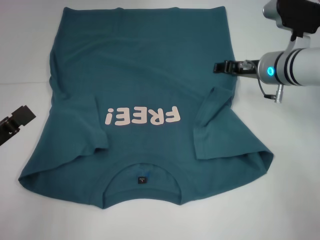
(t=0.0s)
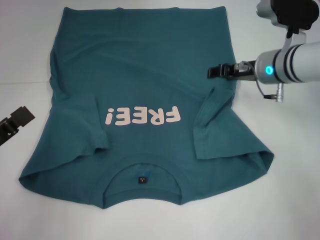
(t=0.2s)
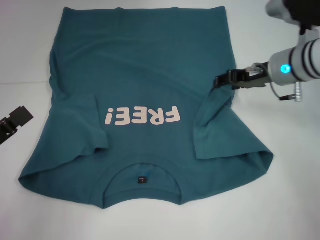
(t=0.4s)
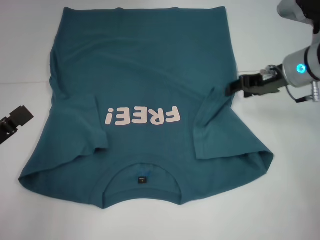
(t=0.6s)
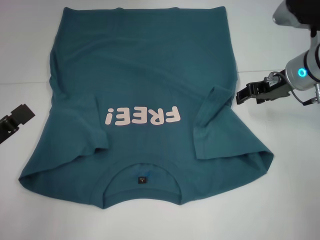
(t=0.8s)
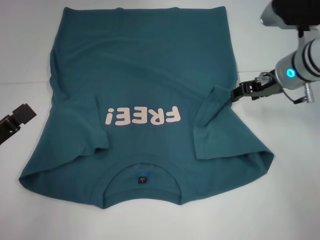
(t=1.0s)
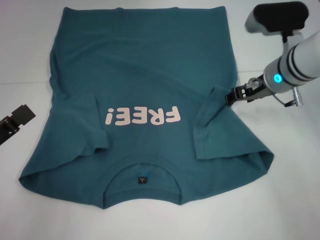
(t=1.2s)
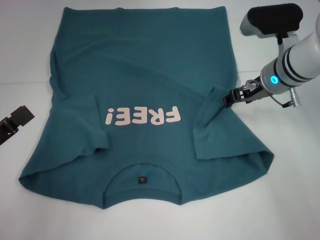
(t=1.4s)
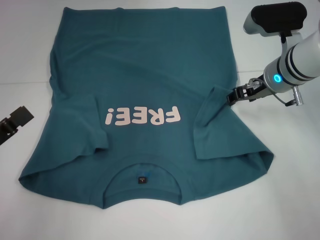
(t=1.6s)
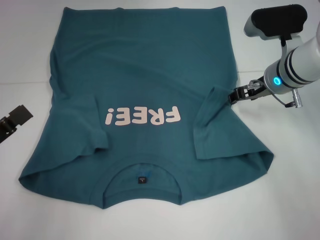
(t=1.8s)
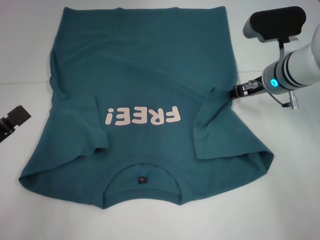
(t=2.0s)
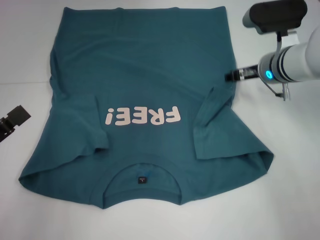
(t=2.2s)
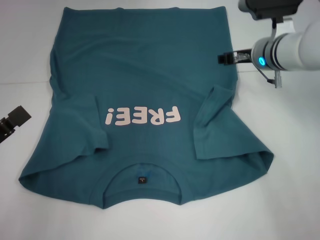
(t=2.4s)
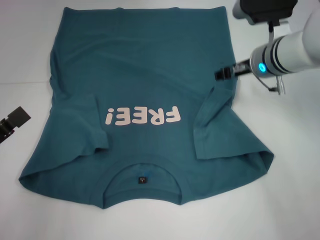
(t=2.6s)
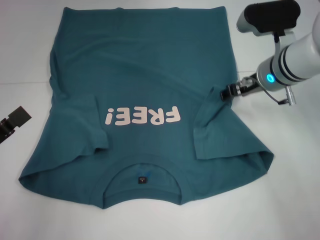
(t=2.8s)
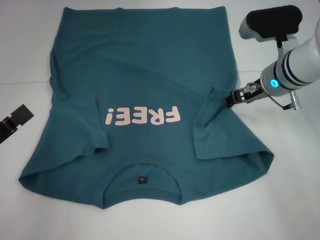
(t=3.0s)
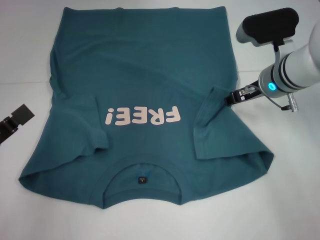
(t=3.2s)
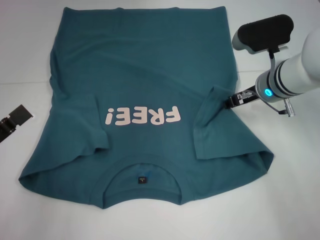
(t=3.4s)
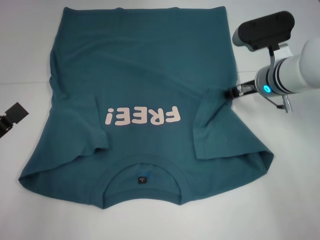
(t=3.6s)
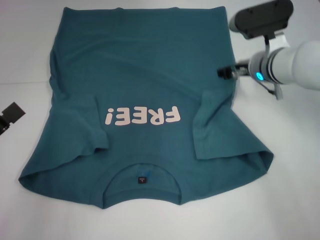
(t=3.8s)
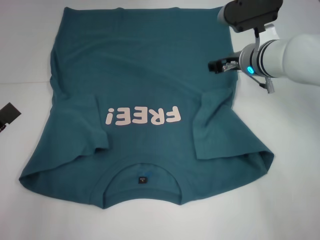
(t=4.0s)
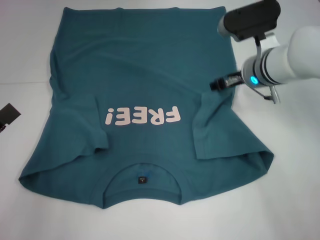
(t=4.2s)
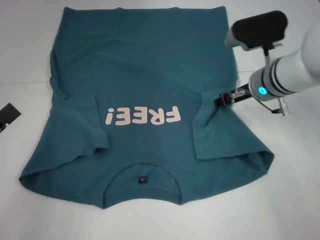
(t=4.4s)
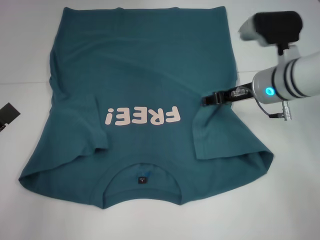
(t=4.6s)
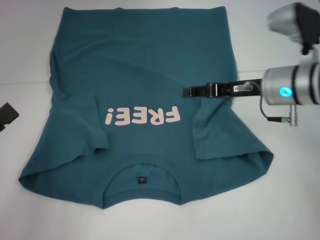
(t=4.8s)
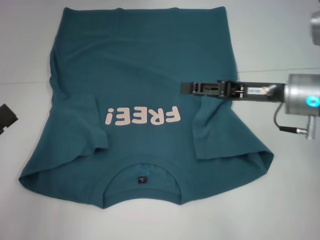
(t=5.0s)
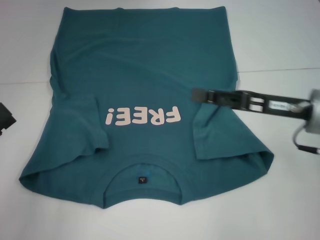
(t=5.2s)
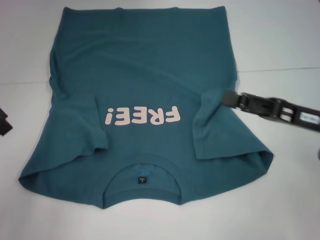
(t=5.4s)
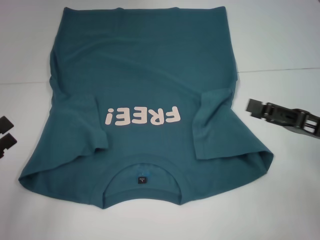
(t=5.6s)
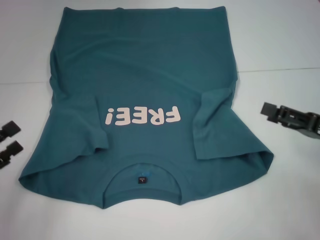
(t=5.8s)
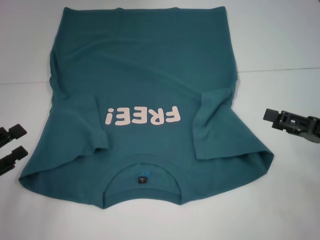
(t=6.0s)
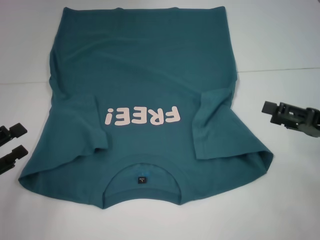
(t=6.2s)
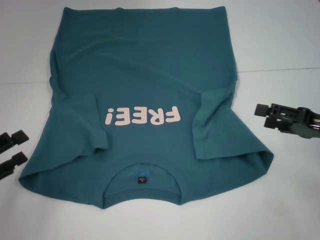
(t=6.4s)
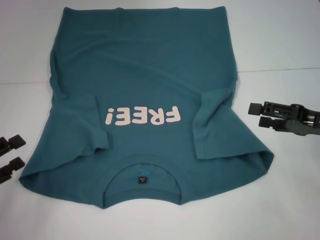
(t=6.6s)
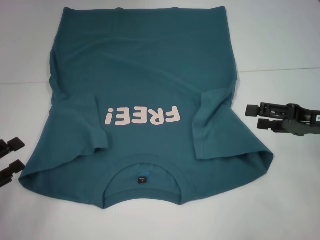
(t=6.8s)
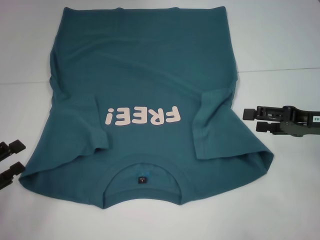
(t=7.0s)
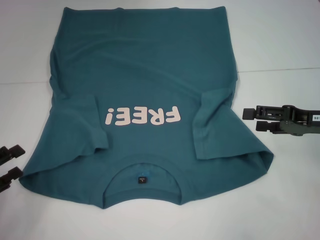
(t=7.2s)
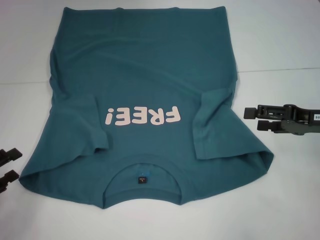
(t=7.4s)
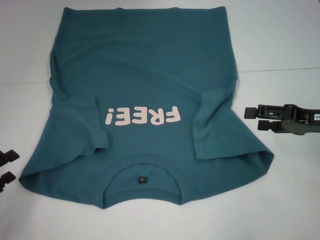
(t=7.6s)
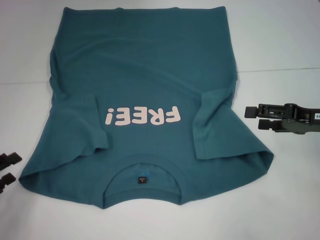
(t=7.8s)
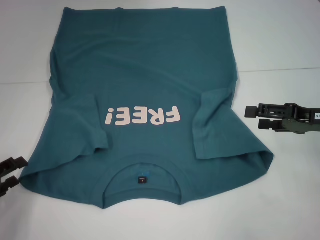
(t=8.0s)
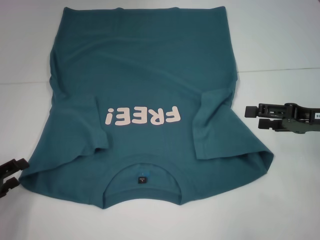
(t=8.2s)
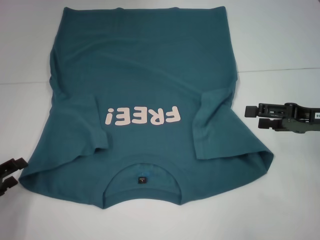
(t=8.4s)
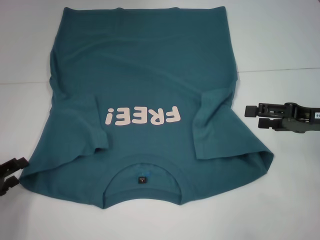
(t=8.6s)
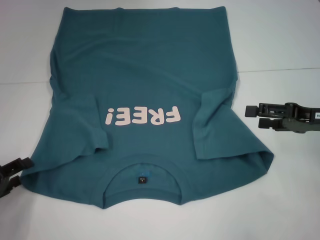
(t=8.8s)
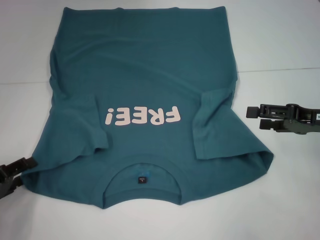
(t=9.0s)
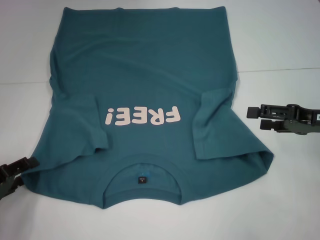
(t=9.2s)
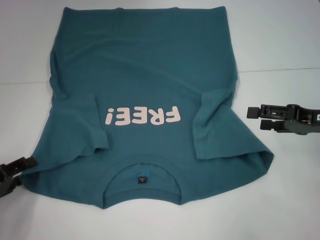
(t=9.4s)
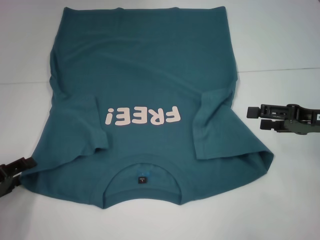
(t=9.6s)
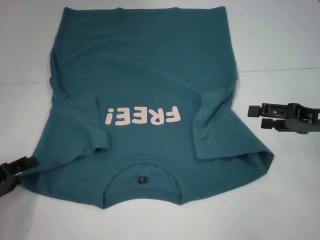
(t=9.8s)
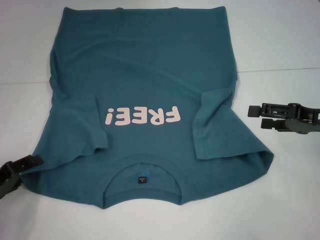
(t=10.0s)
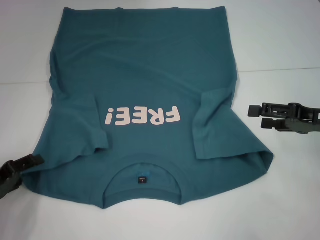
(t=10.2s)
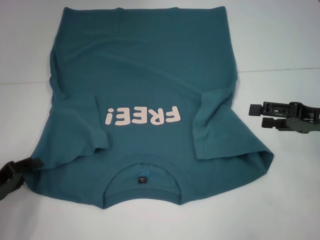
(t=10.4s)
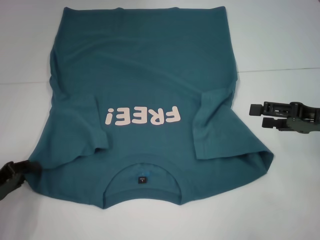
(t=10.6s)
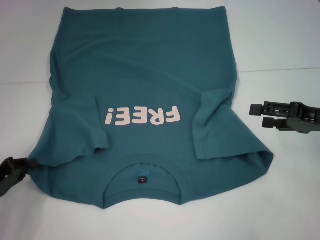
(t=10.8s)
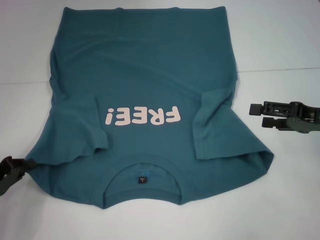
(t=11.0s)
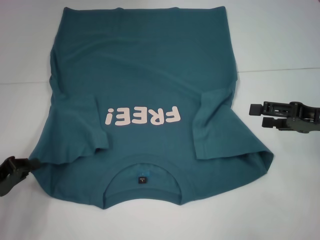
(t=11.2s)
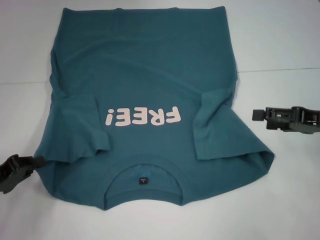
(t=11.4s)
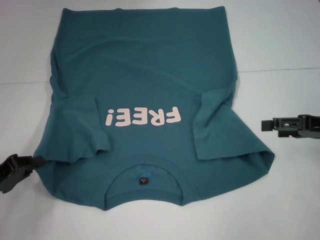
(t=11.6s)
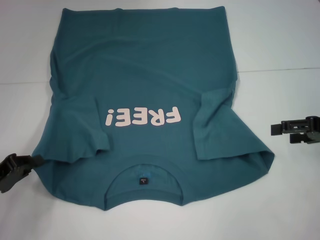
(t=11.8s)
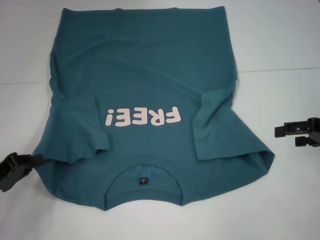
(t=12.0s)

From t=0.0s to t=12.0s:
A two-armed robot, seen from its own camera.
Step, from t=0.0s to t=4.0s: Fold the bottom right sleeve to the right.
Step, from t=4.2s to t=11.2s: Grab the bottom left corner with your left hand.
From t=4.4s to t=6.0s: The right gripper is displaced backward and to the right by about 20 cm, and opens up.
From t=6.0s to t=7.6s: The right gripper ends up approximately 5 cm from where it was.
From t=7.6s to t=10.4s: There are only small adjustments of the grippers.
From t=10.4s to t=12.0s: The left gripper closes.

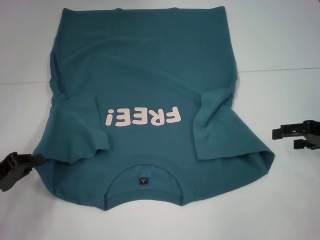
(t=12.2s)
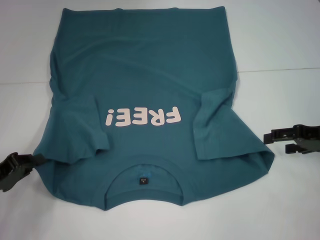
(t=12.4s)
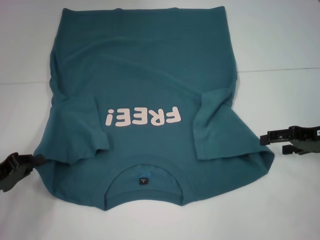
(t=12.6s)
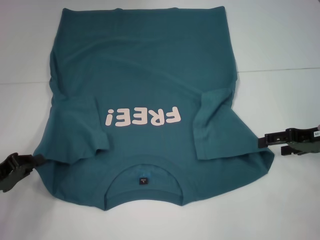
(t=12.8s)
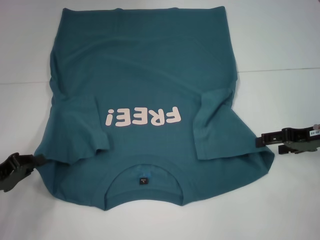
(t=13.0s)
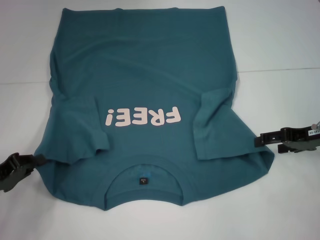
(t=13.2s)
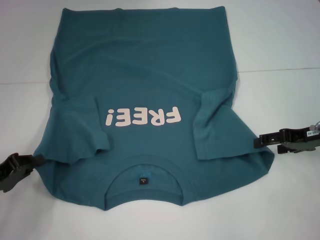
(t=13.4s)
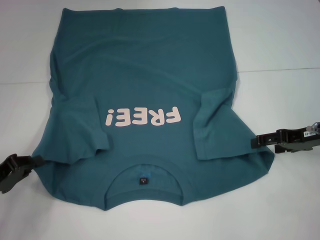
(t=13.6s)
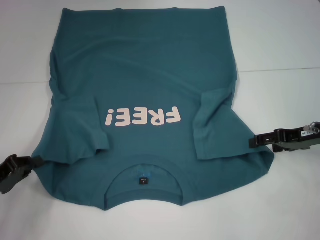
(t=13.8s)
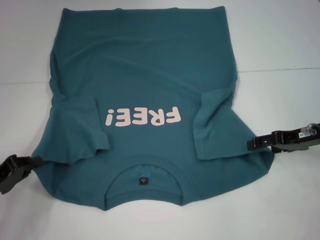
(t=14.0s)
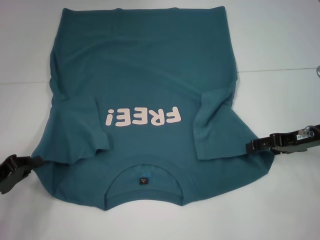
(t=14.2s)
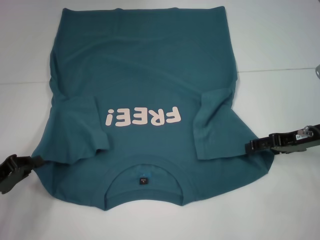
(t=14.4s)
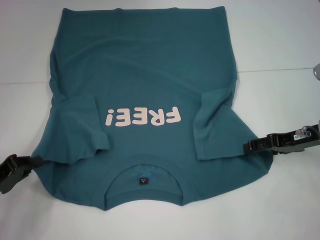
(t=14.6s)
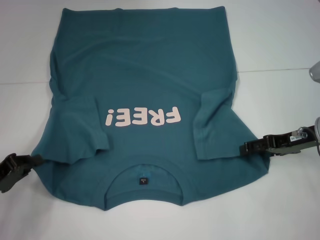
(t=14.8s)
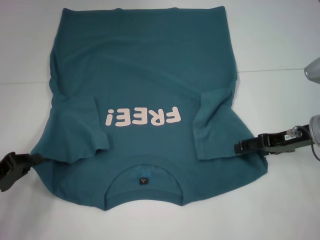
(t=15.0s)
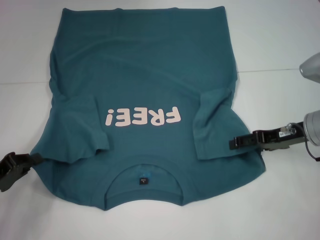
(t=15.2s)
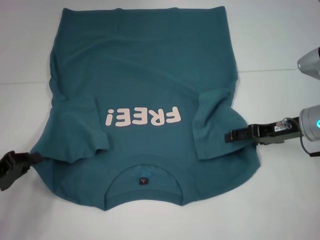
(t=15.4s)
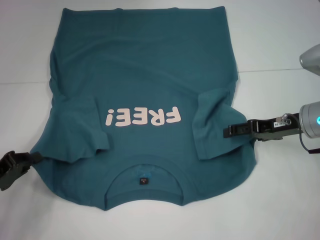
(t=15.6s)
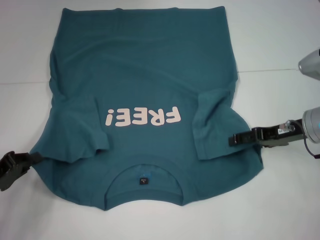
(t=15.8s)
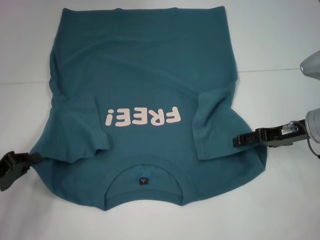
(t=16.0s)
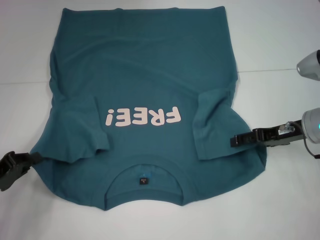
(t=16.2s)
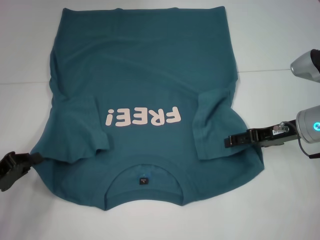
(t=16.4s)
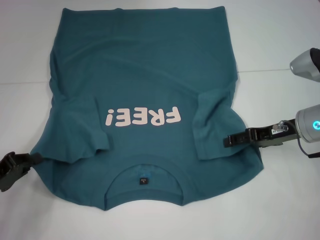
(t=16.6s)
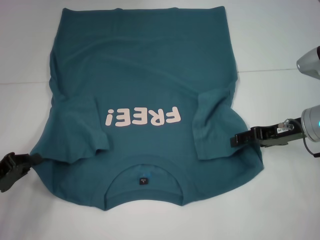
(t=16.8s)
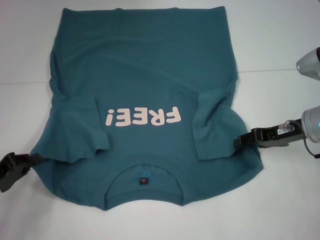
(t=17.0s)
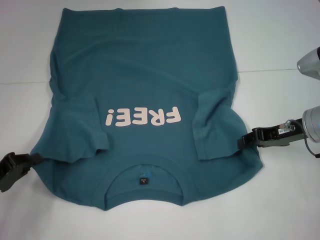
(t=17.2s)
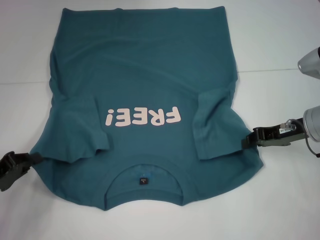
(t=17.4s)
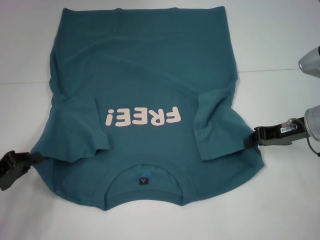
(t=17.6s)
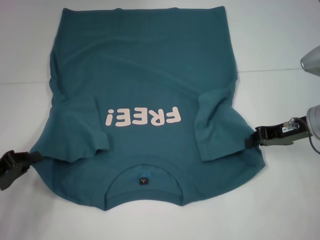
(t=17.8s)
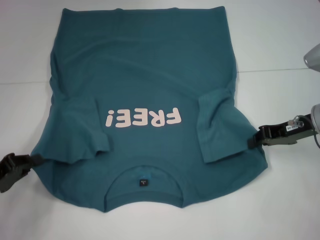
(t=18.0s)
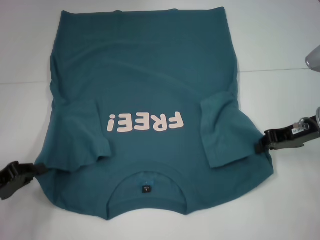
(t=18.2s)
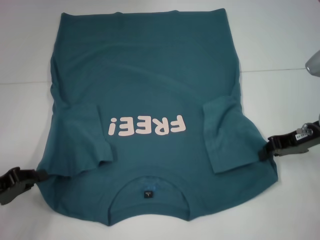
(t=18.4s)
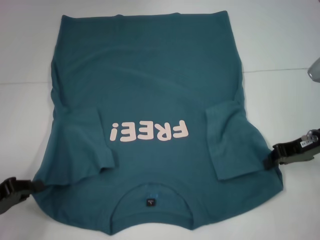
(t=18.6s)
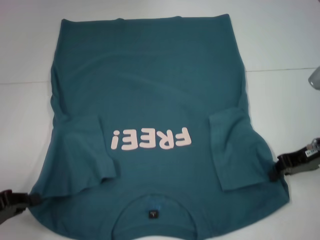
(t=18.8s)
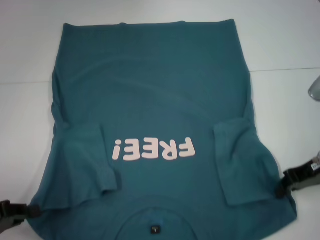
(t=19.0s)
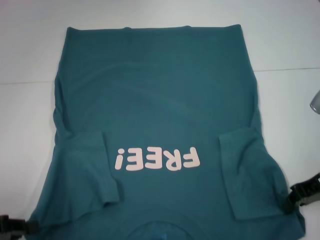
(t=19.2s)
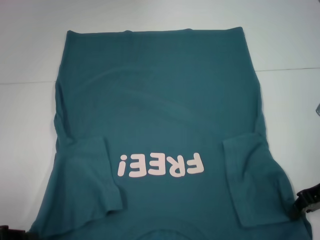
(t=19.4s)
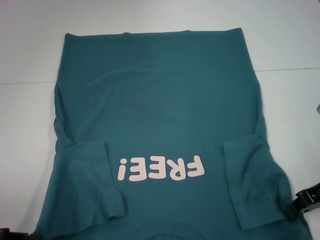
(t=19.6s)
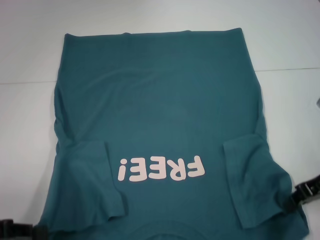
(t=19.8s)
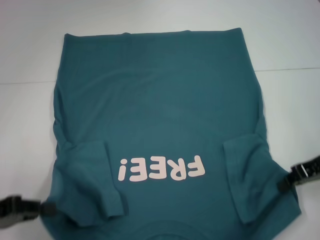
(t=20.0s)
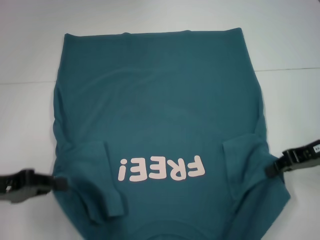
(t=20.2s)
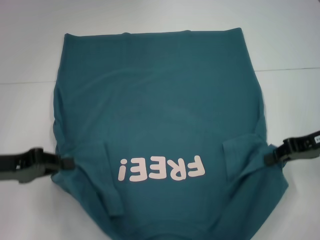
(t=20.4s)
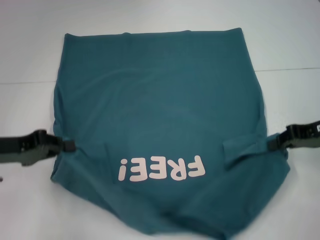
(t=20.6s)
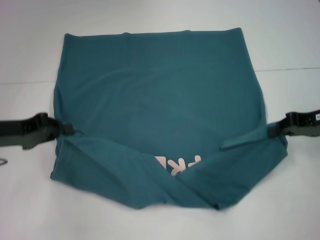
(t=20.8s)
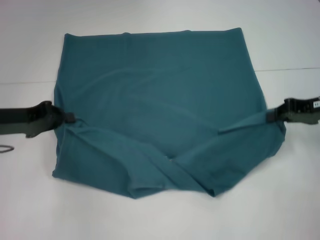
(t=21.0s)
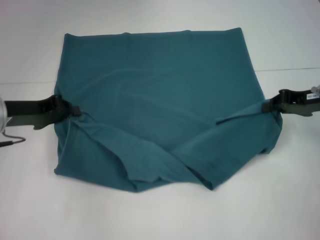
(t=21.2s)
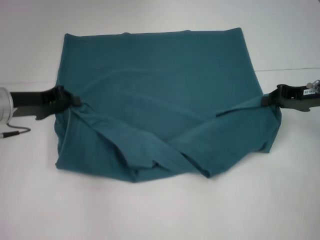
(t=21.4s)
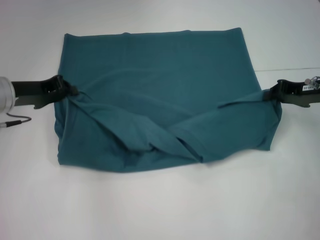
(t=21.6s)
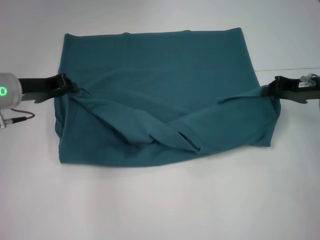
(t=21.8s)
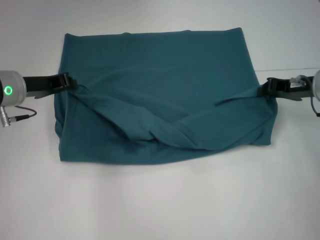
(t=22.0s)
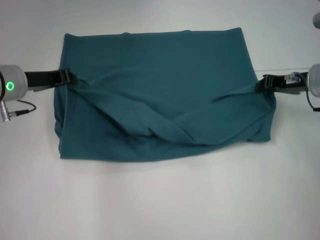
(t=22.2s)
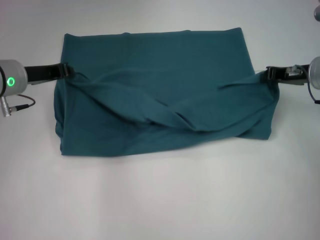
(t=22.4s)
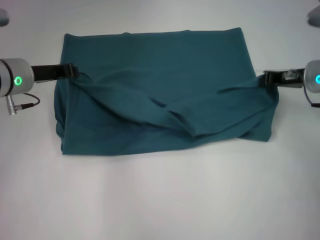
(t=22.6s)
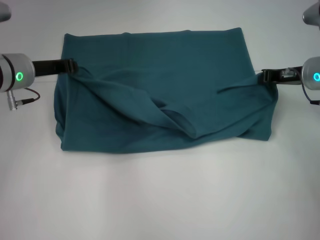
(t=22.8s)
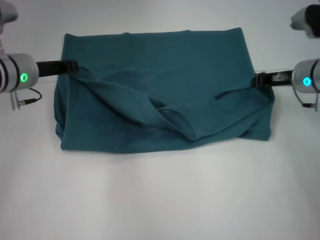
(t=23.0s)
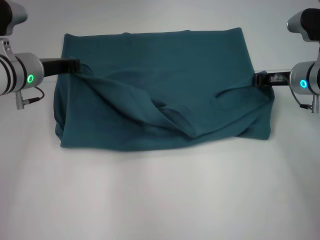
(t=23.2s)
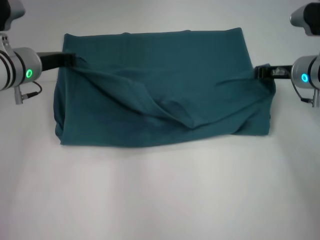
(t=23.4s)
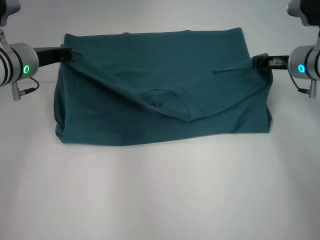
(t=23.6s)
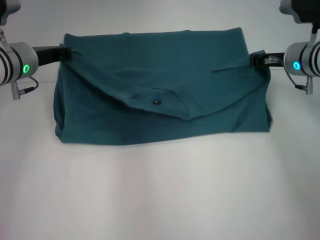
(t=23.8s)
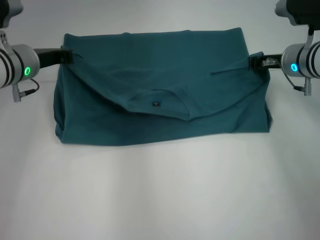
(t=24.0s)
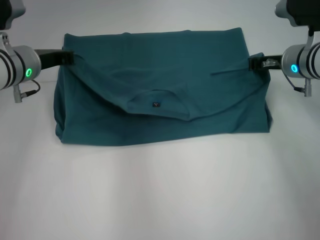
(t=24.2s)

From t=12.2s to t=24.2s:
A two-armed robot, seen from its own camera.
Step, from t=12.2s to t=17.6s: Grab the bottom right corner with your right hand.
From t=12.2s to t=13.8s: The right gripper changes place by about 5 cm.
From t=13.8s to t=15.2s: The grippers move only a little.
From t=15.2s to t=16.6s: The two grippers keep their place.
From t=16.6s to t=18.2s: The right gripper closes up.
From t=18.2s to t=19.8s: The two grippers go roughly 5 cm backward.
From t=19.8s to t=21.2s: The right gripper travels forward by roughly 5 cm; the left gripper shifts roughly 20 cm forward and to the right.
From t=21.2s to t=22.6s: Both grippers travel together forward, roughly 5 cm.
From t=22.6s to t=24.2s: The grippers stay close to where they were, moving slightly.
